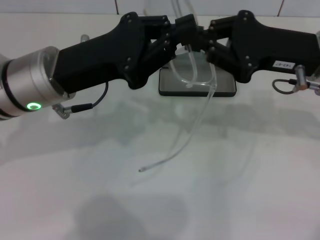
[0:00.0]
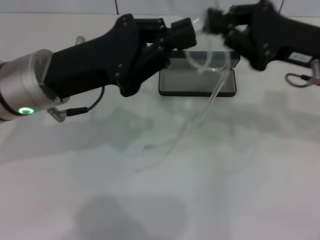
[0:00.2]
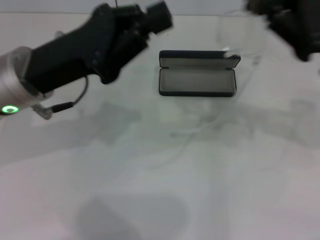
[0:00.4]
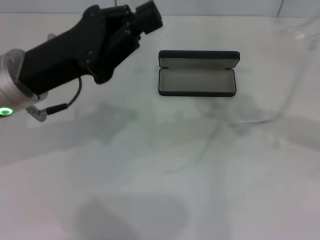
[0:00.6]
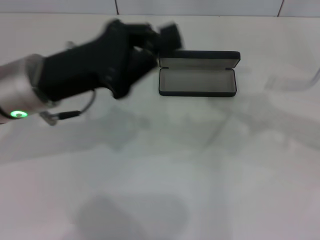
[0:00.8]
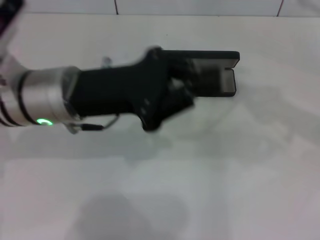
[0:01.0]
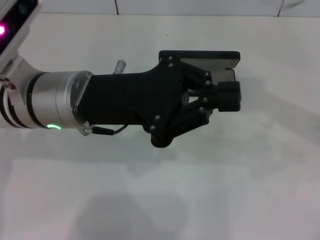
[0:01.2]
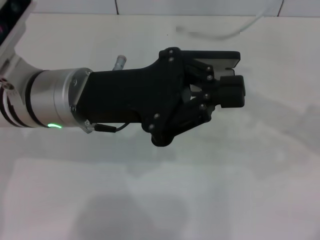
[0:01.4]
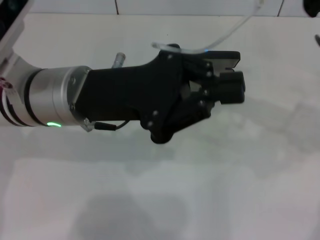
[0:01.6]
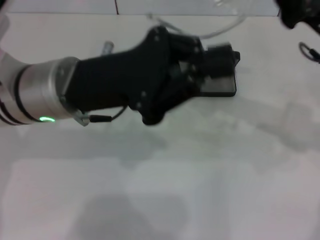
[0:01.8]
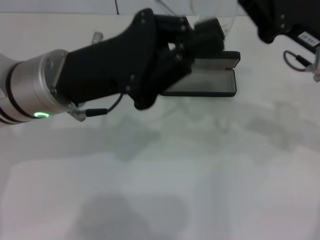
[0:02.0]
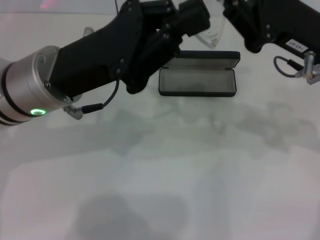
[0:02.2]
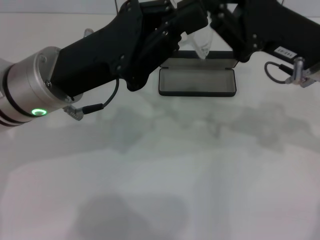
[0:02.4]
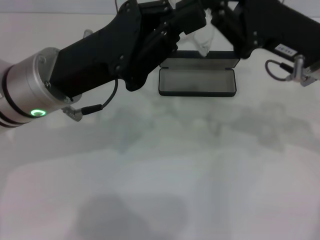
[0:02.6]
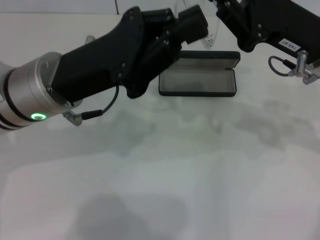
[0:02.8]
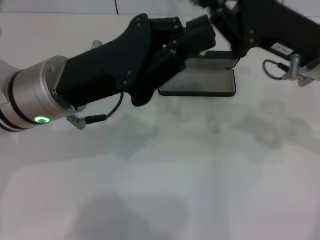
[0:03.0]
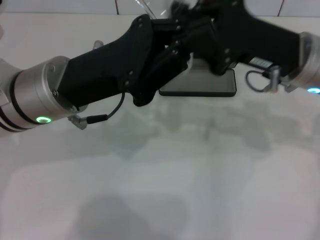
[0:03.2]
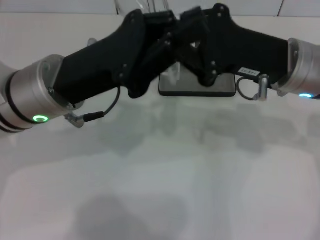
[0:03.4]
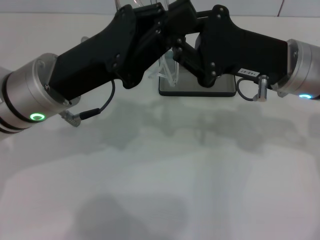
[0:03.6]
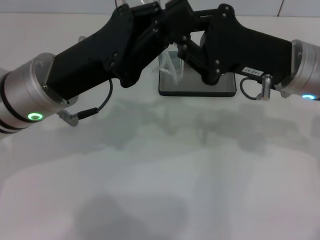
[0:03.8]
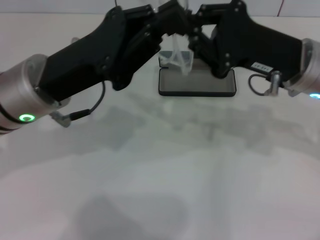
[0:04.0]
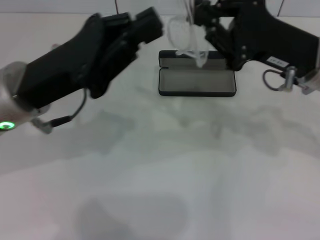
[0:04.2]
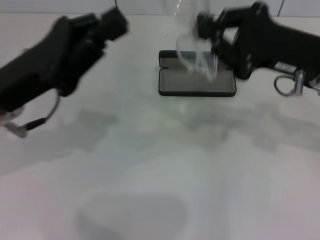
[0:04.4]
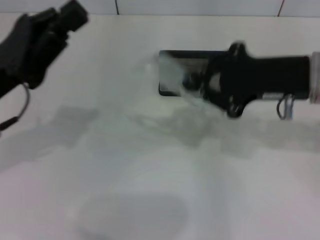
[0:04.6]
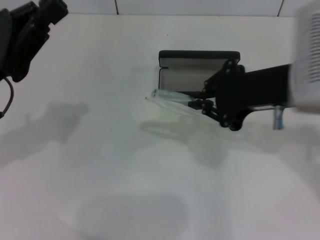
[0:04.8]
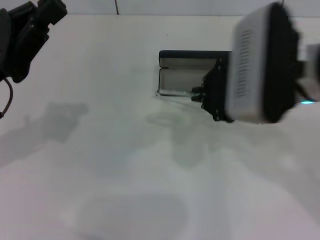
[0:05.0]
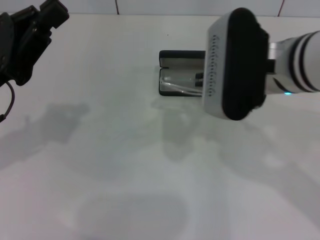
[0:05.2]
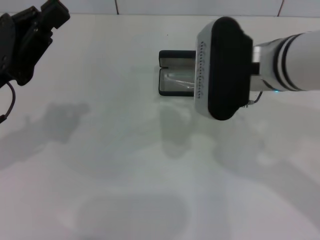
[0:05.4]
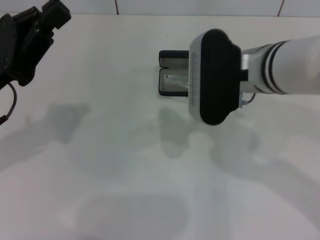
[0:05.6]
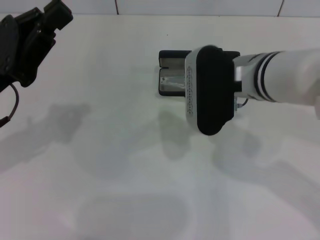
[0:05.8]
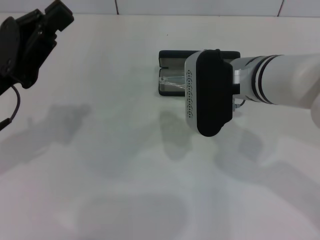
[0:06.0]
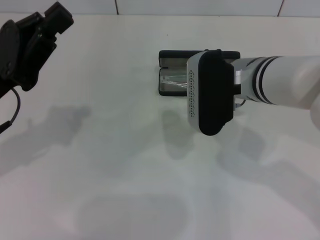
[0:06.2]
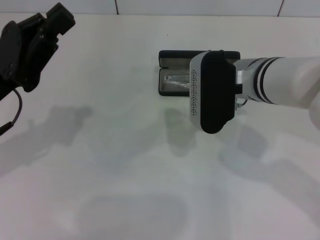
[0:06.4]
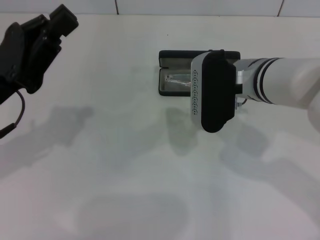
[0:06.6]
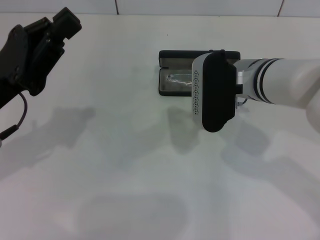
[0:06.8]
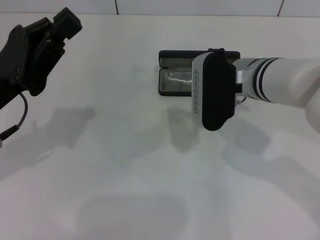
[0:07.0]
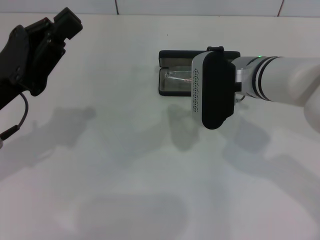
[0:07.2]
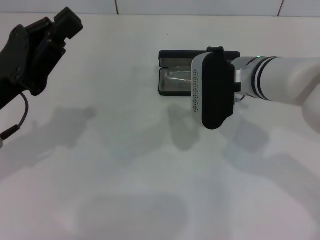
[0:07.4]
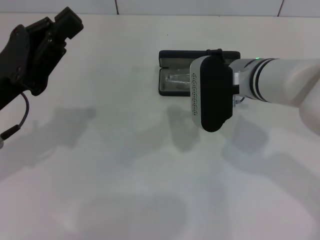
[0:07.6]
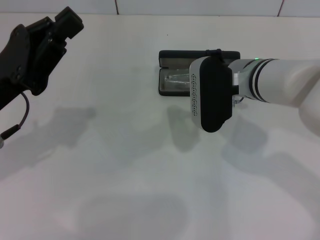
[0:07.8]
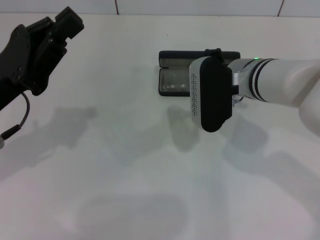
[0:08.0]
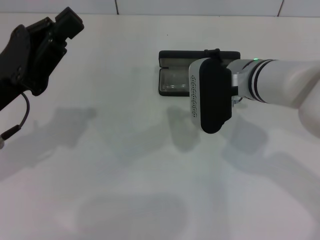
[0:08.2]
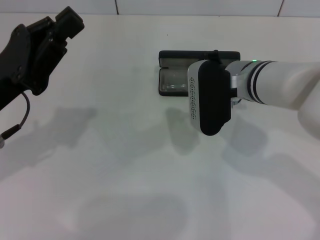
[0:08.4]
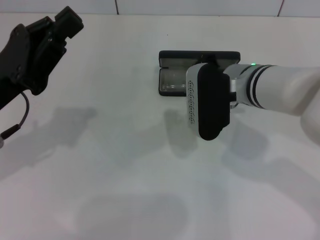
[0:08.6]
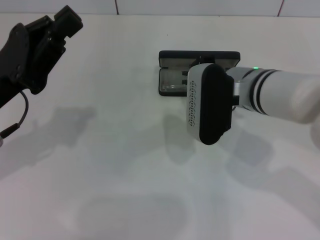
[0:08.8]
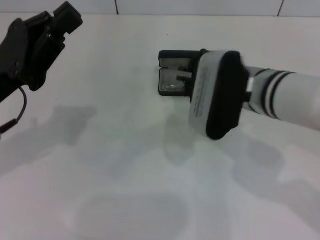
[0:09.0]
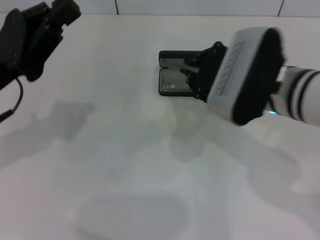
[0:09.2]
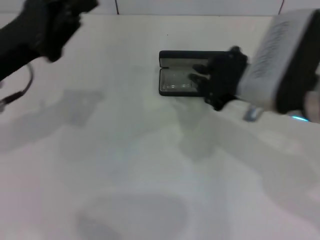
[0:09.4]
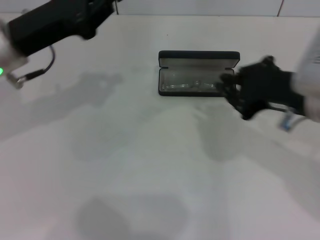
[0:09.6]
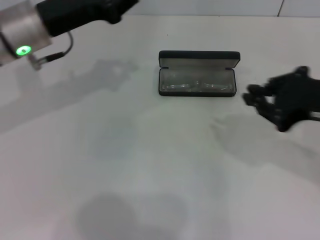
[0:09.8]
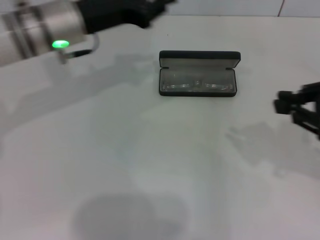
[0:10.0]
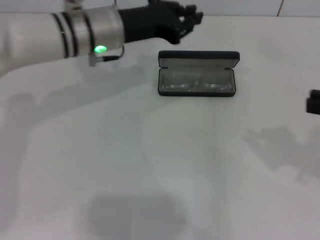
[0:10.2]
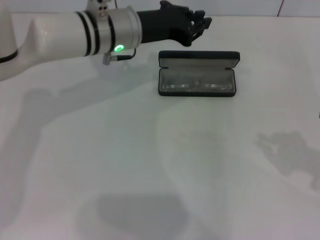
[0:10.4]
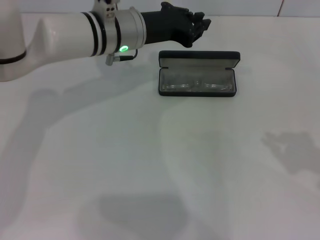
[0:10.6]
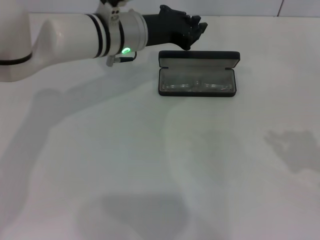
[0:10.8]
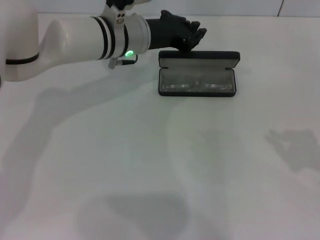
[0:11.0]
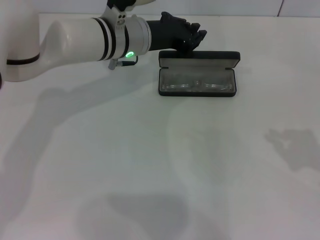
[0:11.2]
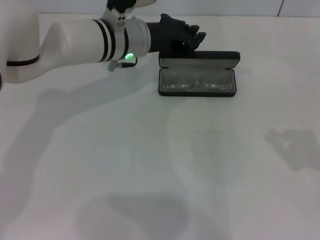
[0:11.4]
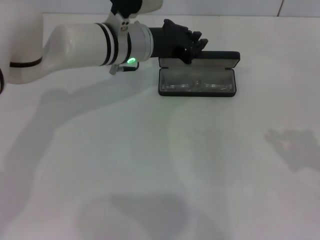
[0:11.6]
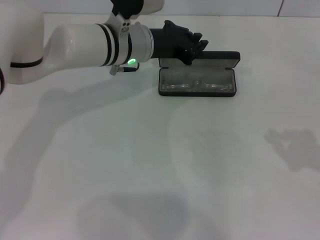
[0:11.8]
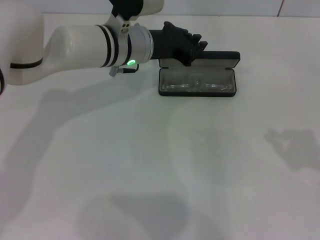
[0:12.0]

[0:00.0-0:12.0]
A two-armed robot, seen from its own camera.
Step, 0:00.0 to 0:03.6: Fold the frame with your left hand.
Step, 0:03.8 to 0:08.8: Put the glasses into the case with your right hand.
0:00.0 to 0:01.6: The right gripper moves about 10 cm to the right and comes back.
0:03.0 to 0:04.4: The left gripper shifts about 5 cm to the left.
0:04.4 to 0:06.0: The right gripper heads to the left, covering some 10 cm.
0:06.0 to 0:09.0: There are only small adjustments of the grippers.
0:09.0 to 0:10.4: The left gripper is displaced to the right and forward by some 20 cm, while the right gripper is displaced to the right and backward by about 25 cm.
0:10.4 to 0:12.0: The grippers move only a little.

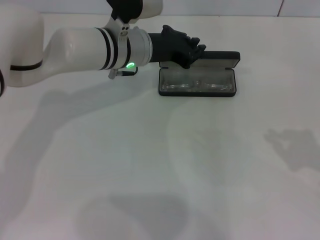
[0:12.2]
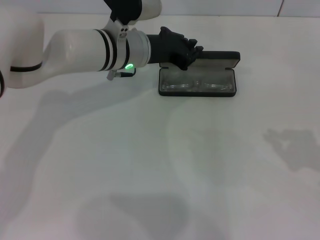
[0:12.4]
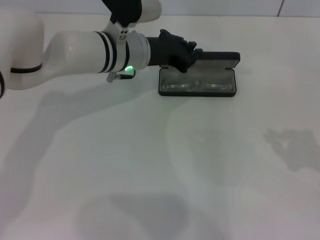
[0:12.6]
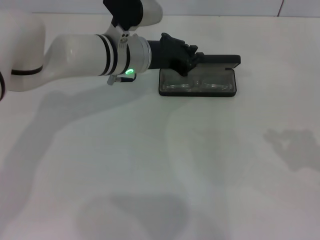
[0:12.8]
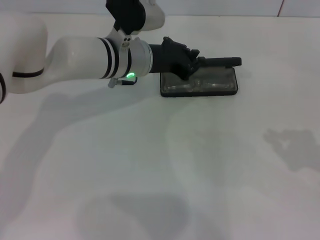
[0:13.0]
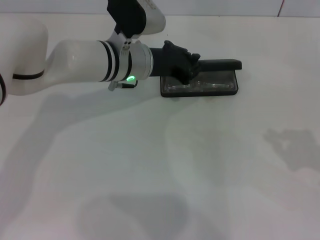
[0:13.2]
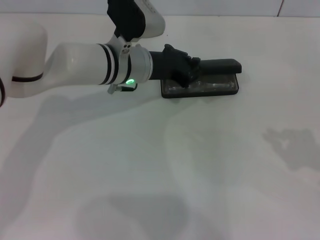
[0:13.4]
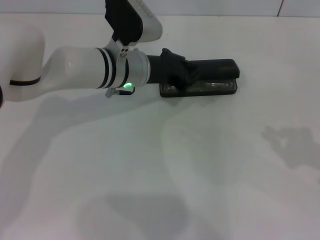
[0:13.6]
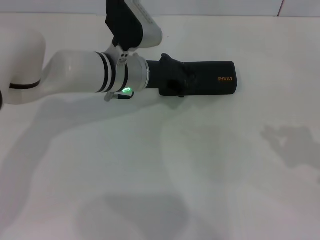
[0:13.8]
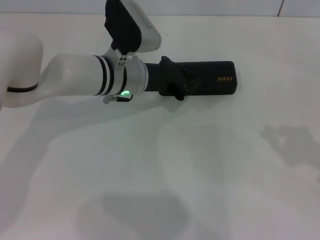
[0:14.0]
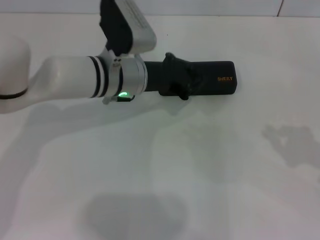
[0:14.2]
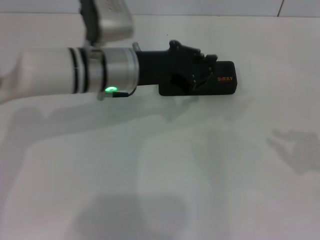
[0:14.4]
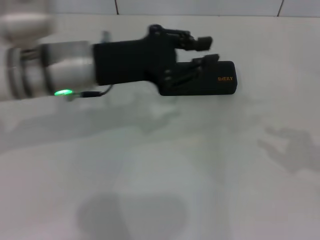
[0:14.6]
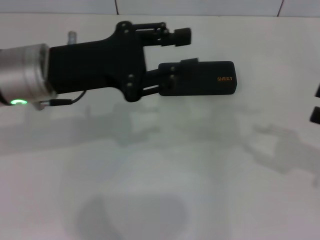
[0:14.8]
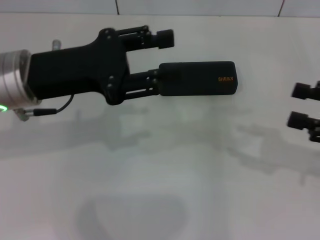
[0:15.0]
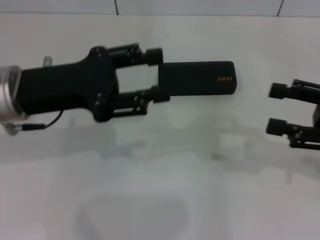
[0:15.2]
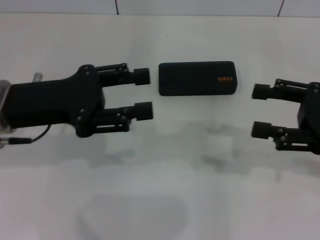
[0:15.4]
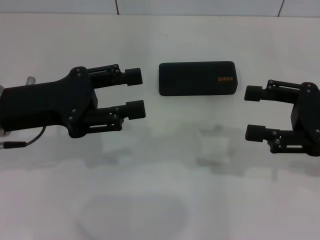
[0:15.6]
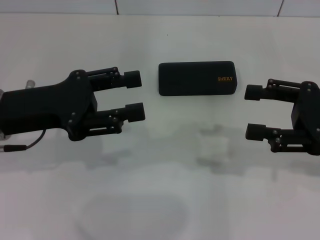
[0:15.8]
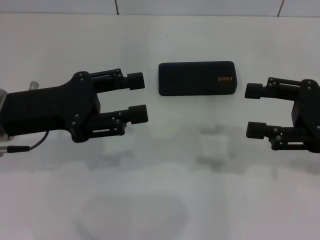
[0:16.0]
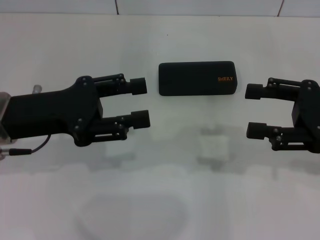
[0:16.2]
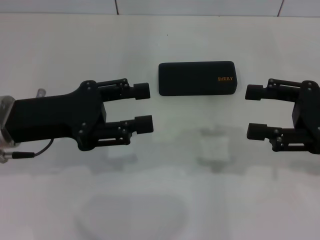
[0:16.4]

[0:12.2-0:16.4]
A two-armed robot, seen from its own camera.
Step, 0:12.2 to 0:14.2: Close the glasses case with your left hand.
0:12.2 to 0:13.6: The grippers make only small movements.
0:13.6 to 0:15.0: The right gripper opens its fingers; the left gripper travels to the left, backward and upward by roughly 20 cm, and opens.
0:15.0 to 0:16.4: The left gripper changes place by some 5 cm; the right gripper moves some 5 cm.

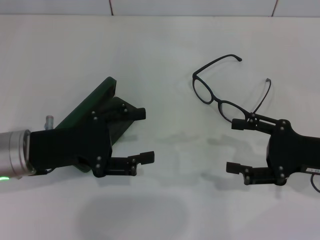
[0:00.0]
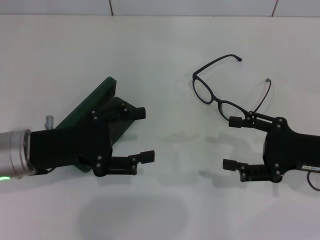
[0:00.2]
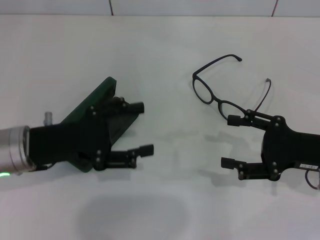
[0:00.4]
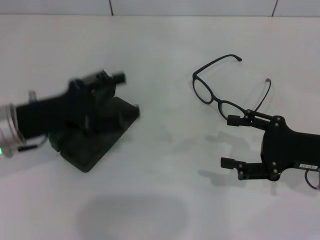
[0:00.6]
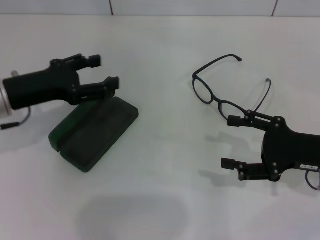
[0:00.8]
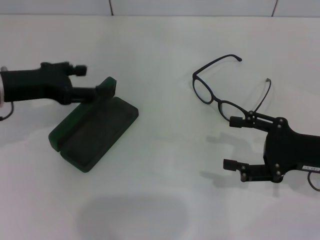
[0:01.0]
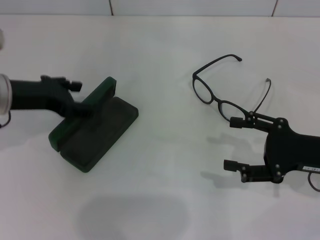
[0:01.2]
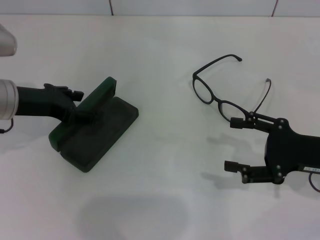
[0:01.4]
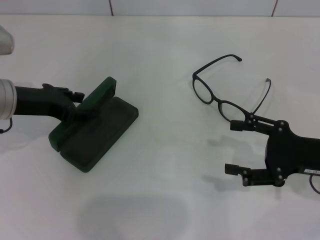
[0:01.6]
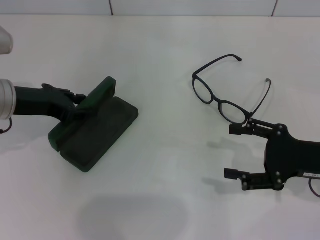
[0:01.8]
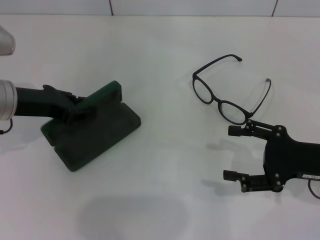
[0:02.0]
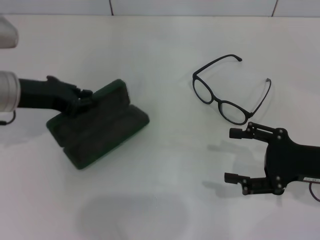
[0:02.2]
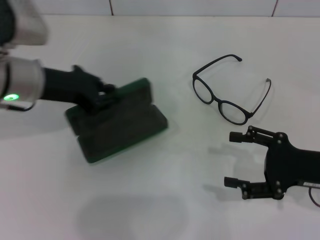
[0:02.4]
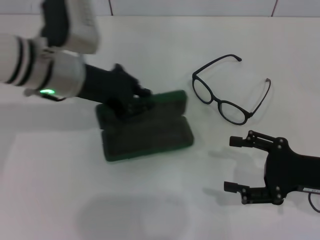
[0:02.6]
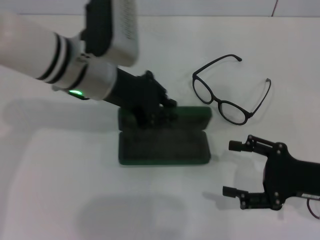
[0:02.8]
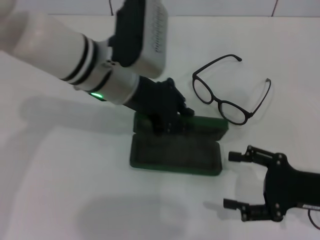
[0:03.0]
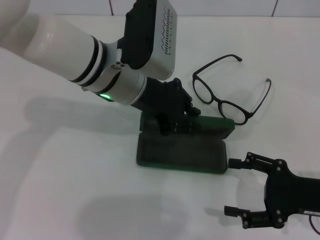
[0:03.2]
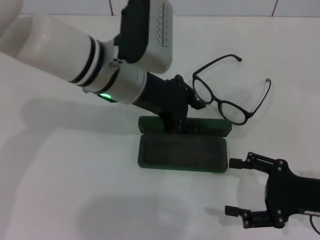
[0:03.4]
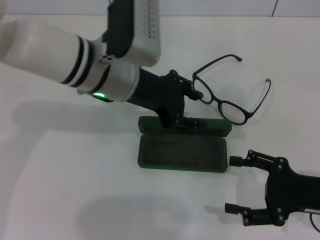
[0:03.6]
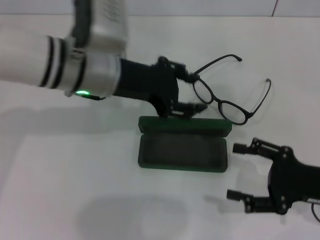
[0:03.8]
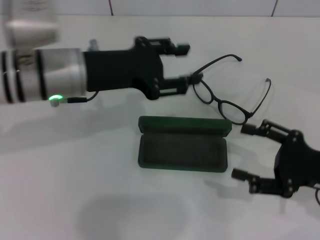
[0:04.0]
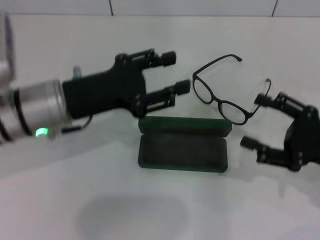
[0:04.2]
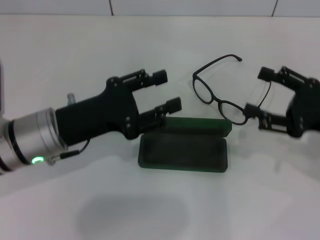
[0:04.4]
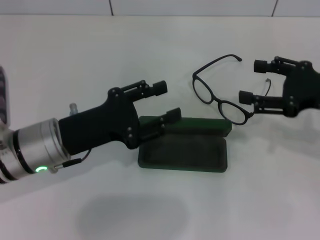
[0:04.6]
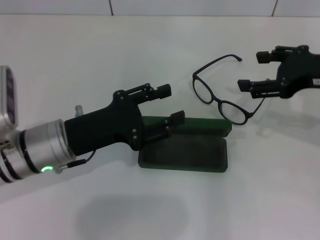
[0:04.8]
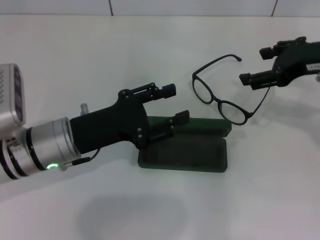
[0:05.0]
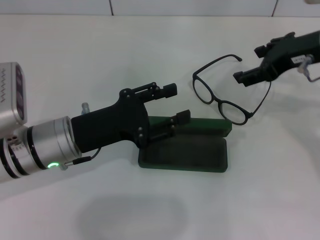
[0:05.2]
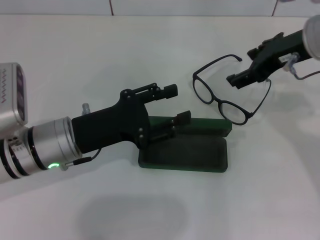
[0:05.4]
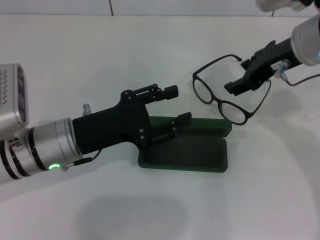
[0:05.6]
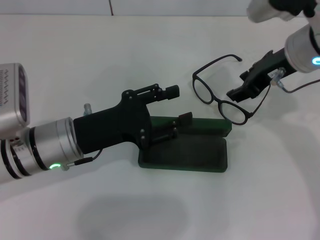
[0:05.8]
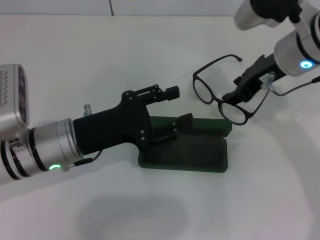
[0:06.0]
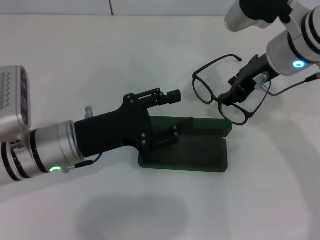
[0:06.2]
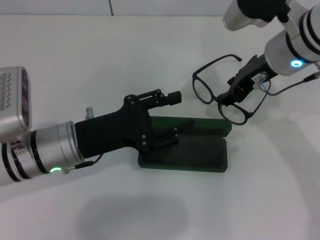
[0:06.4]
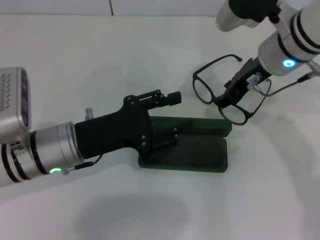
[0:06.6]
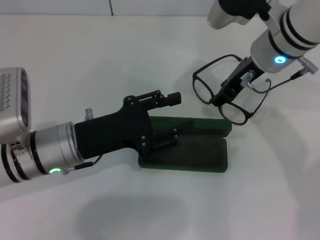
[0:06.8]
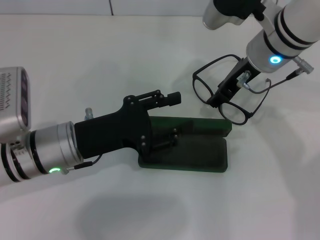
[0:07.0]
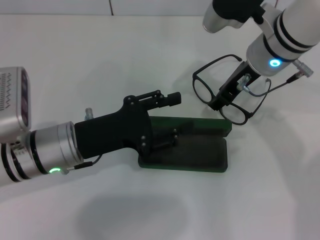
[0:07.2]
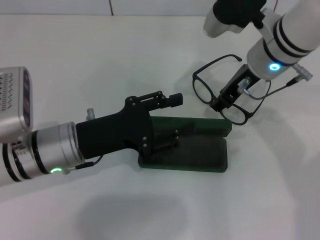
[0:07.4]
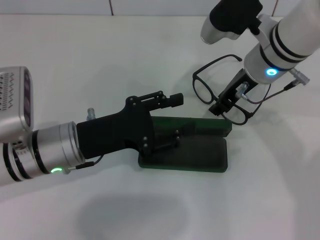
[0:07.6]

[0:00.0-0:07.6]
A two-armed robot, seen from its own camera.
Step, 0:00.0 to 0:02.0: Grab the glasses case with your left hand.
Step, 0:02.2 to 0:03.6: Place the glasses case in the center of the table with your left hand.
0:00.0 to 0:01.6: The left gripper travels forward by about 5 cm.
0:01.6 to 0:03.0: The left gripper heads to the right, covering about 15 cm, and closes up.
0:03.0 to 0:04.6: The right gripper moves upward and forward, roughly 15 cm. The left gripper is displaced to the left, backward and downward by roughly 15 cm, and opens.
0:04.6 to 0:06.0: The right gripper heads to the left and forward, covering some 15 cm, and closes.
0:06.0 to 0:07.6: There are only small adjustments of the grippers.
